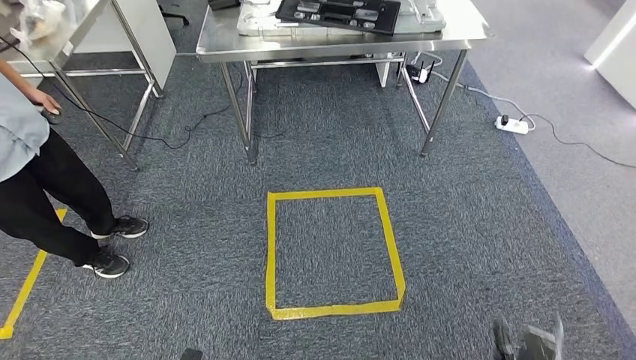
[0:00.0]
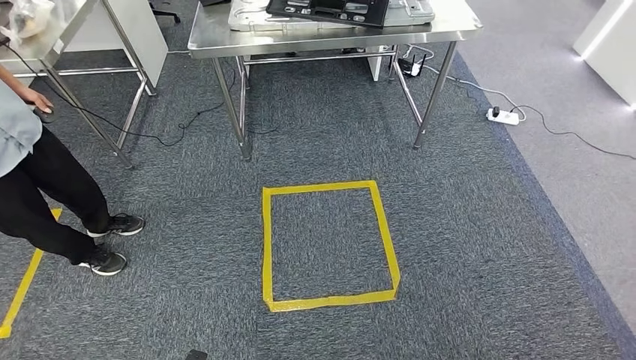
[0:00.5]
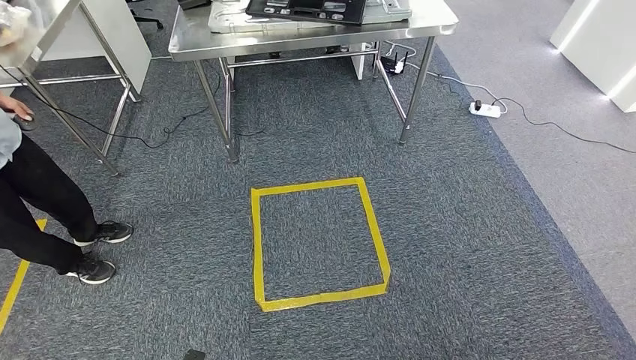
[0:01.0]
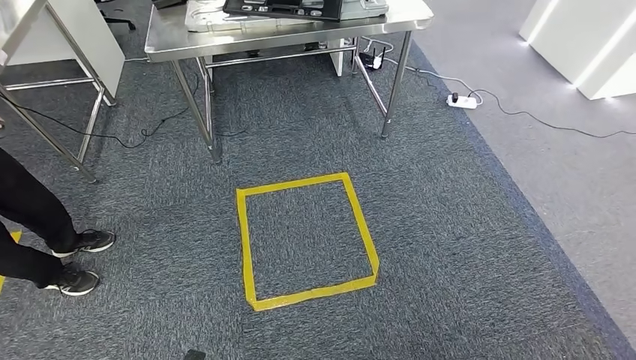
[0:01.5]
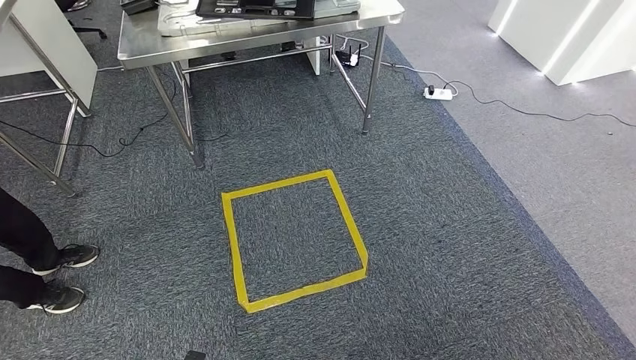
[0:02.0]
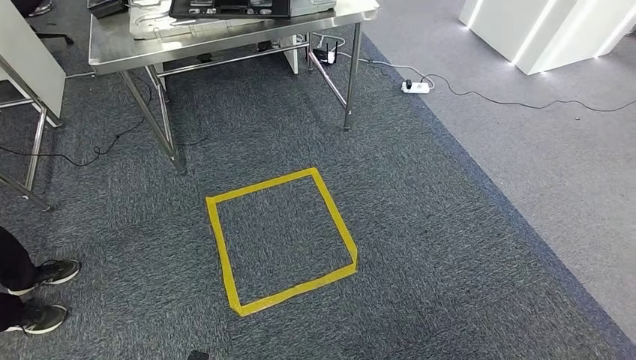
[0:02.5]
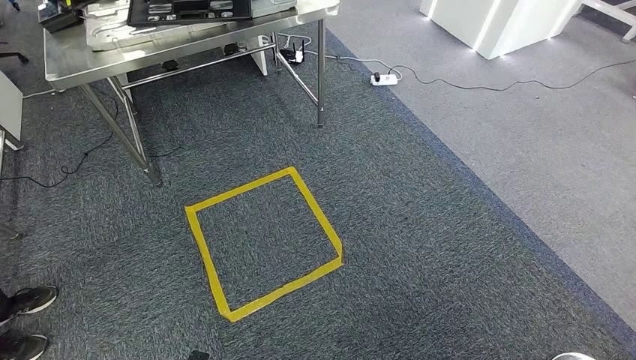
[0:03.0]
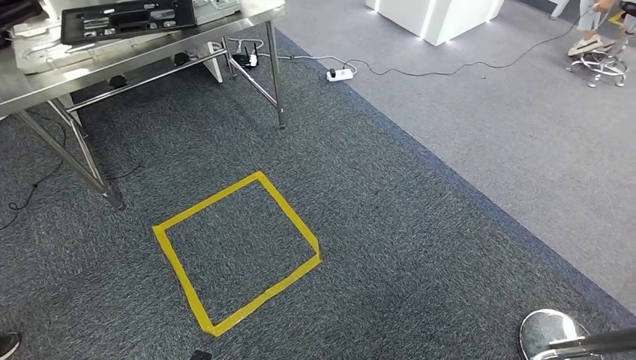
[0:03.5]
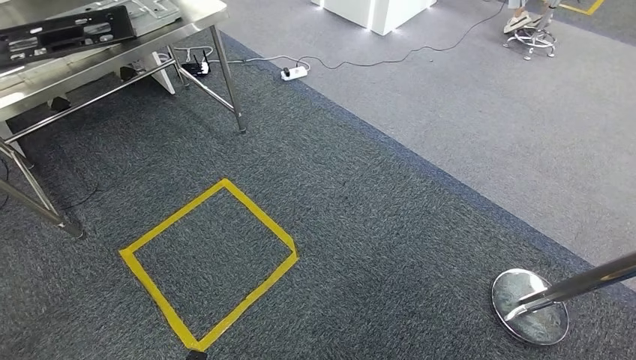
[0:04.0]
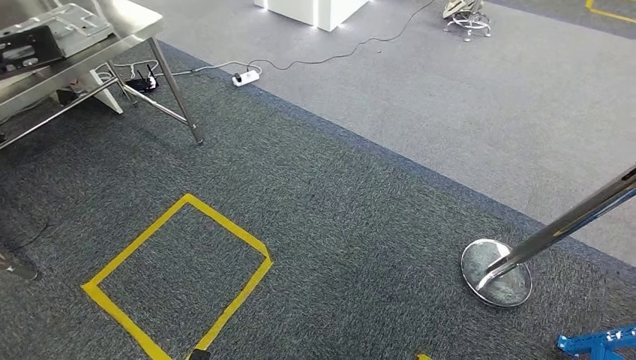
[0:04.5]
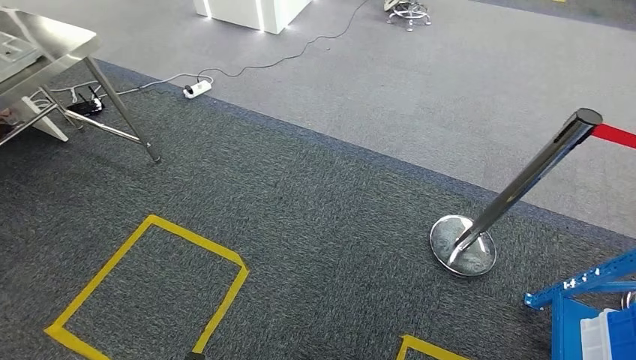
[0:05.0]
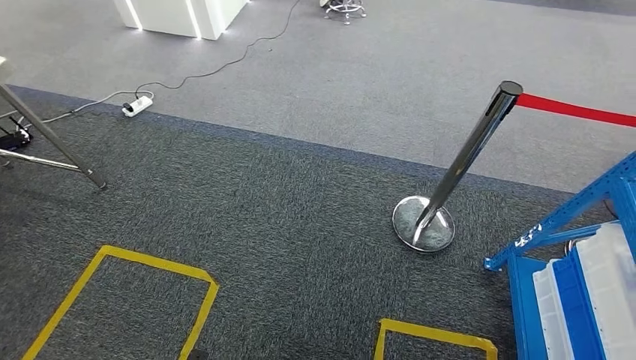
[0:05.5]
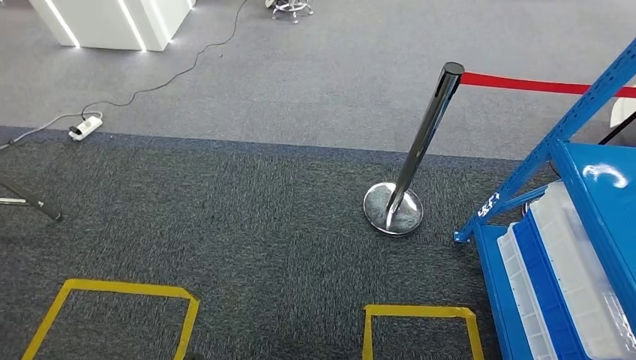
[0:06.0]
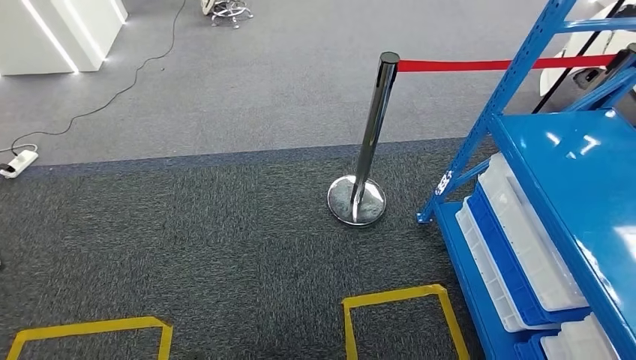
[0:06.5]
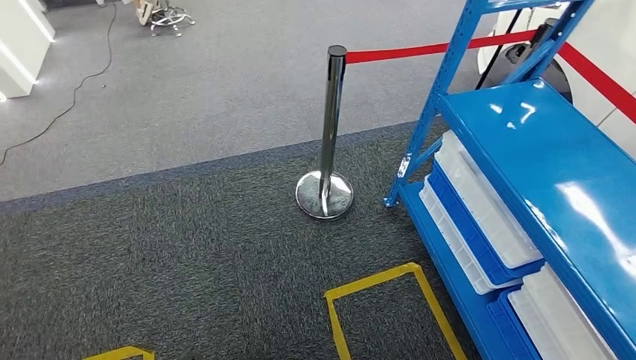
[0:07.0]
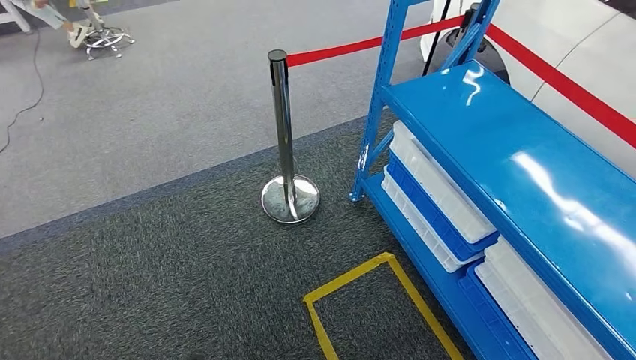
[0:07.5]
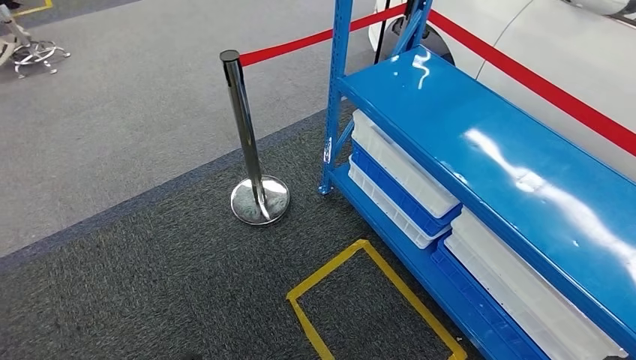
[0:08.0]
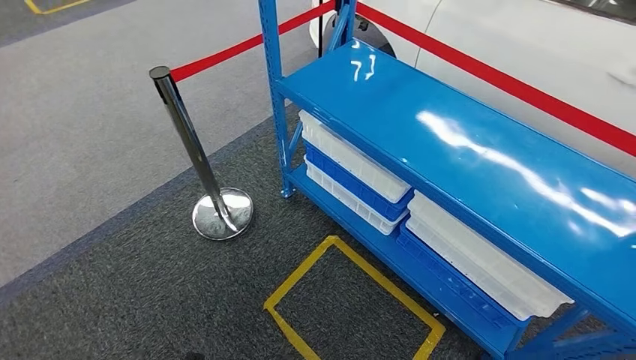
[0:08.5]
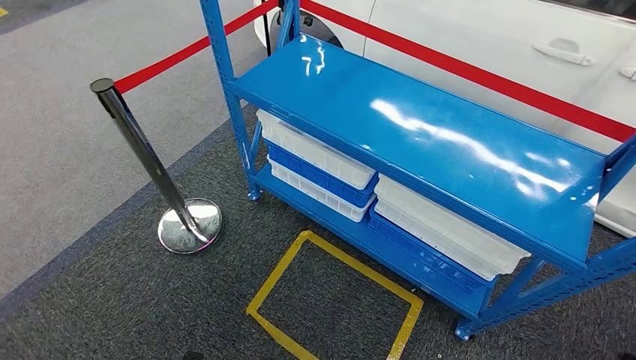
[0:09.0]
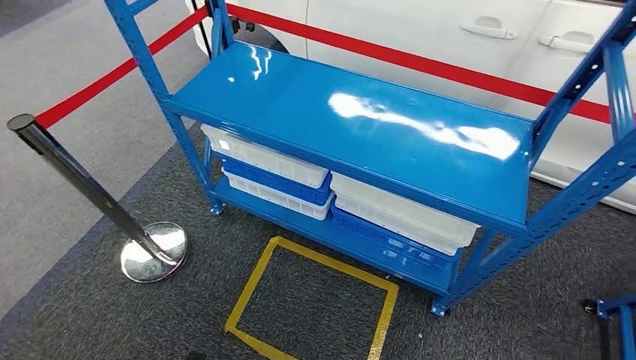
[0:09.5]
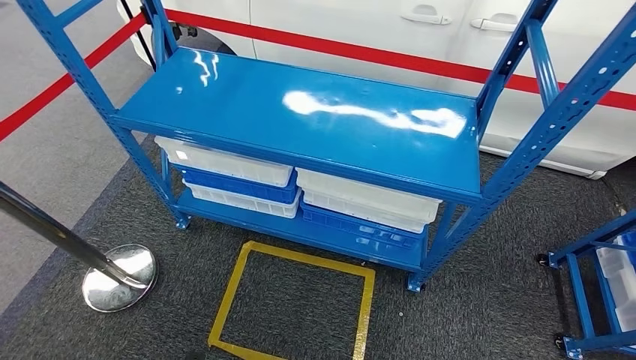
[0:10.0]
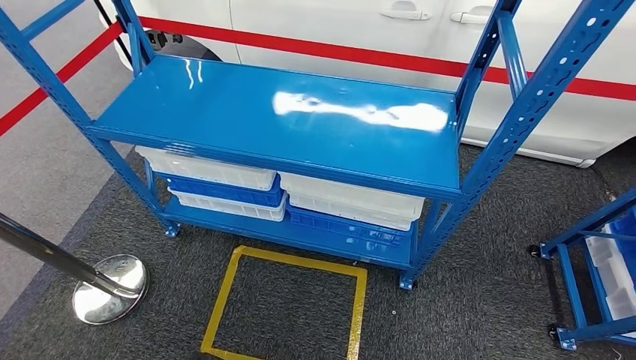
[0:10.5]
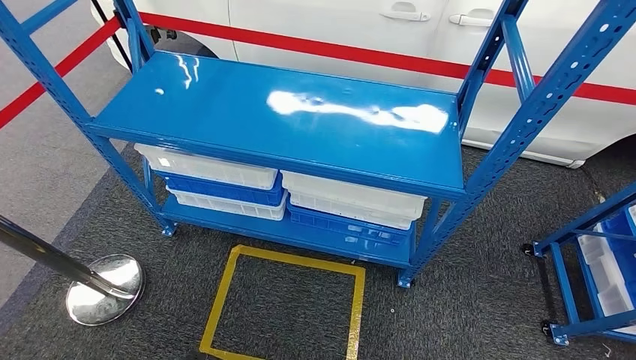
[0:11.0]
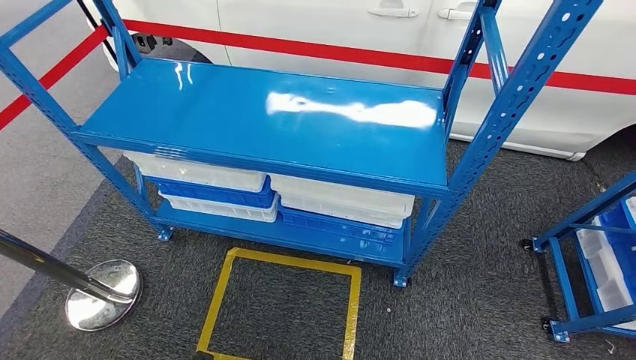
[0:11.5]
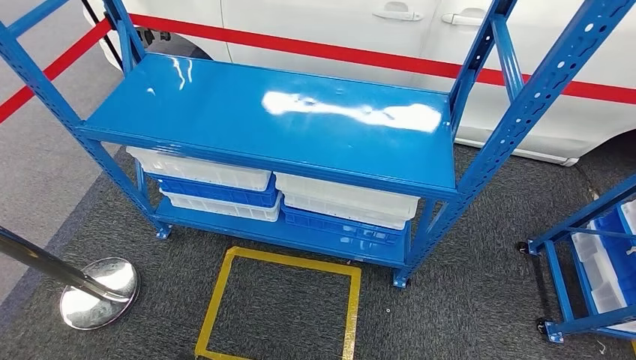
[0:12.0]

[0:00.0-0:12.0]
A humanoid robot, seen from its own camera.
Step, 0:00.0 to 0:12.0: Move to the initial position of the shelf.
